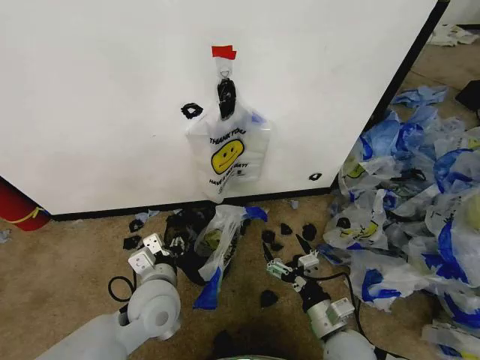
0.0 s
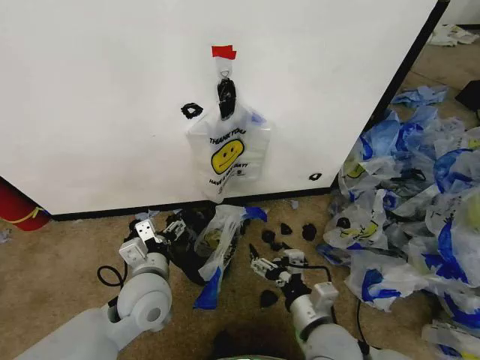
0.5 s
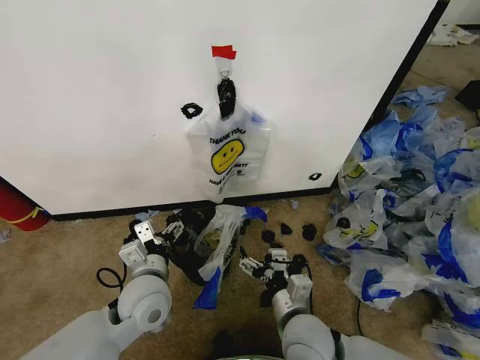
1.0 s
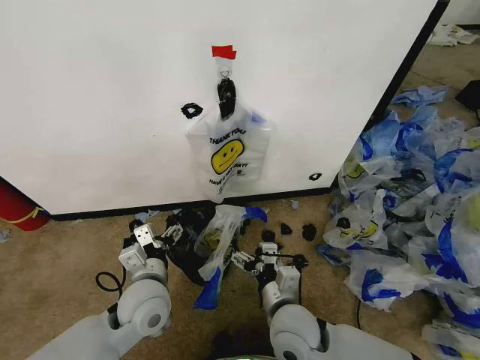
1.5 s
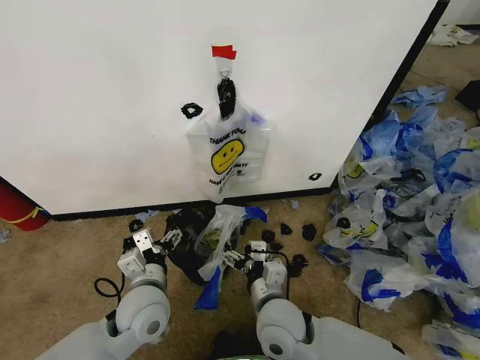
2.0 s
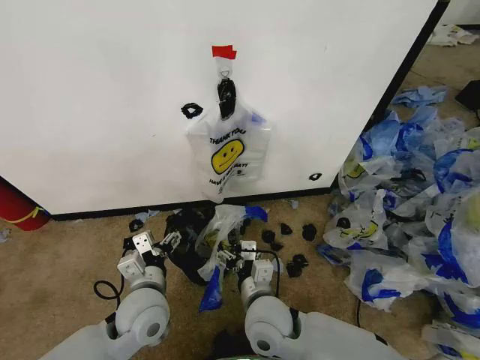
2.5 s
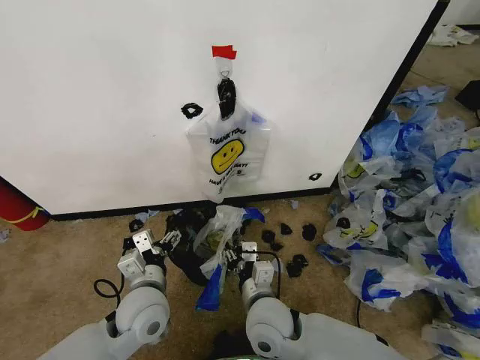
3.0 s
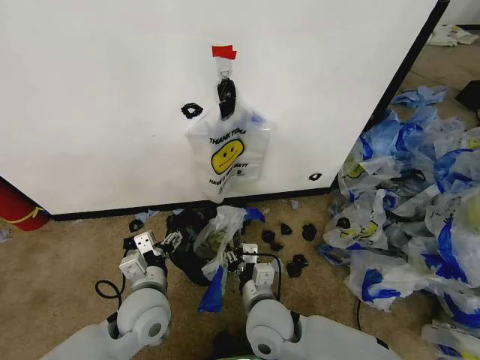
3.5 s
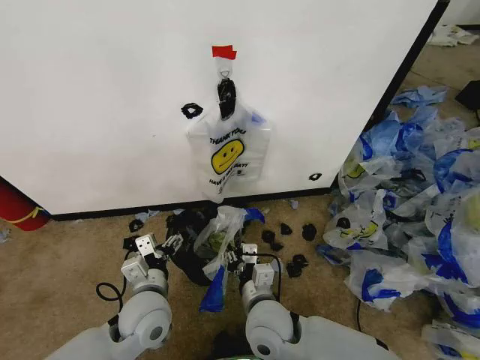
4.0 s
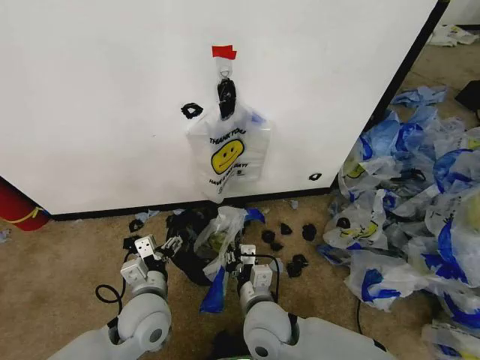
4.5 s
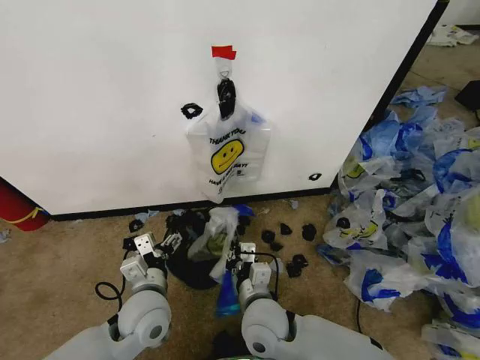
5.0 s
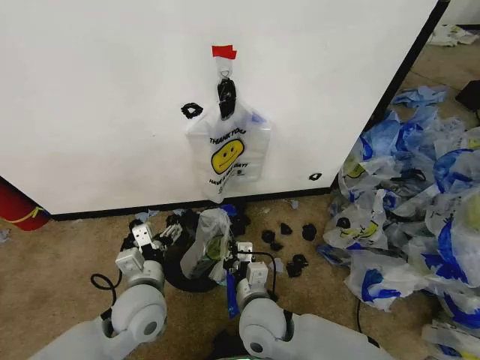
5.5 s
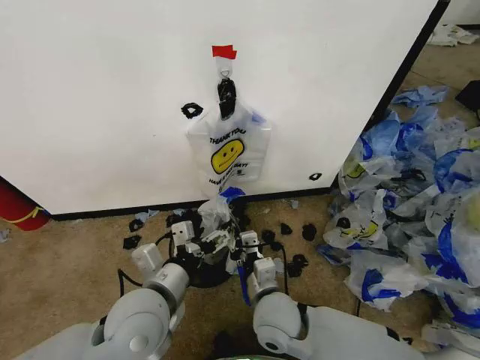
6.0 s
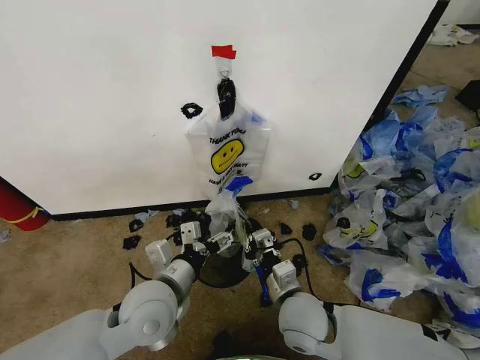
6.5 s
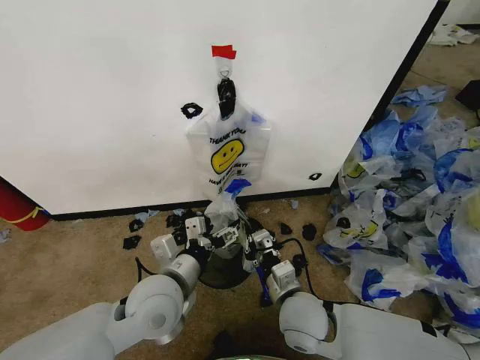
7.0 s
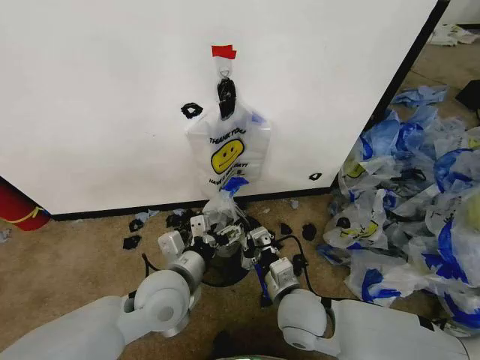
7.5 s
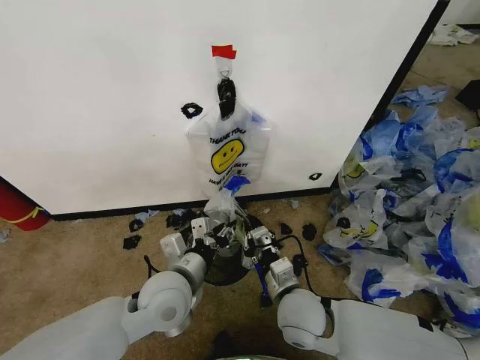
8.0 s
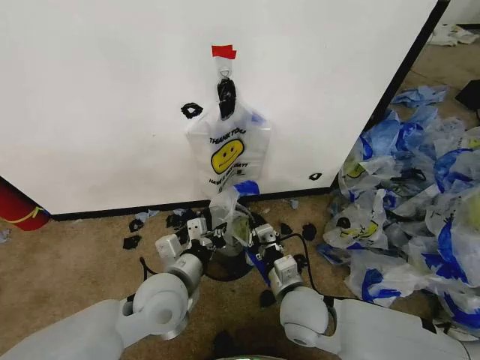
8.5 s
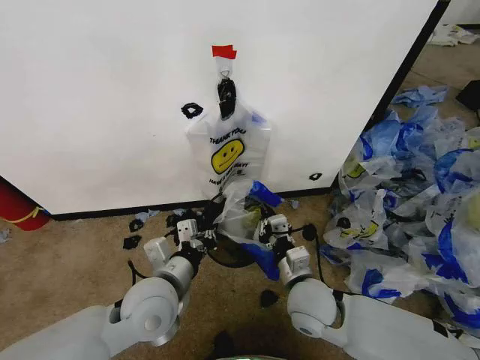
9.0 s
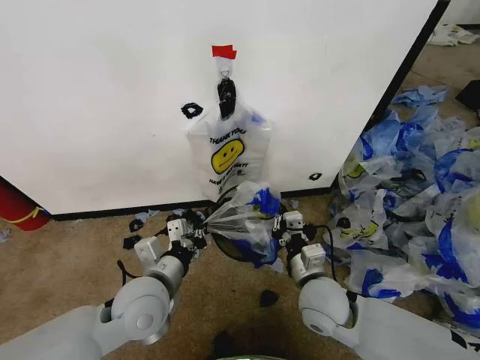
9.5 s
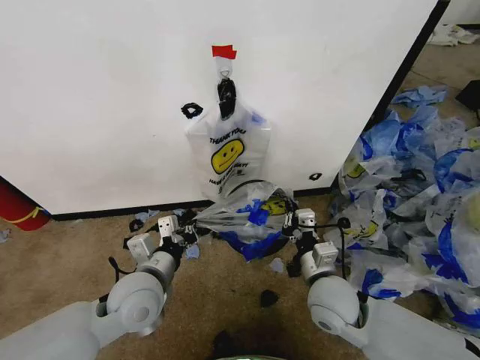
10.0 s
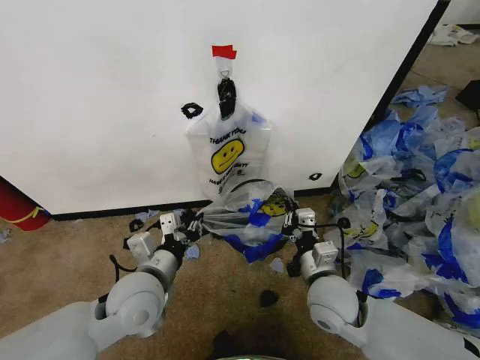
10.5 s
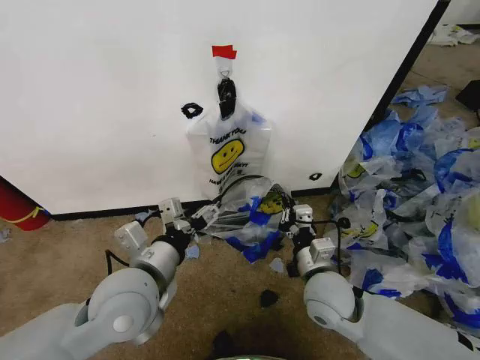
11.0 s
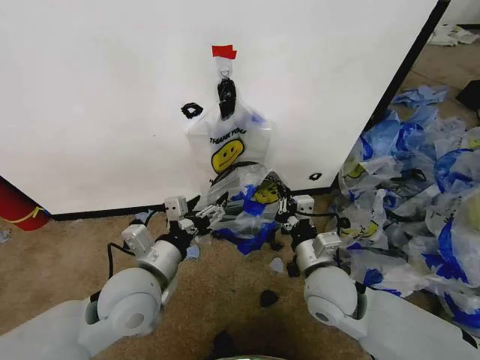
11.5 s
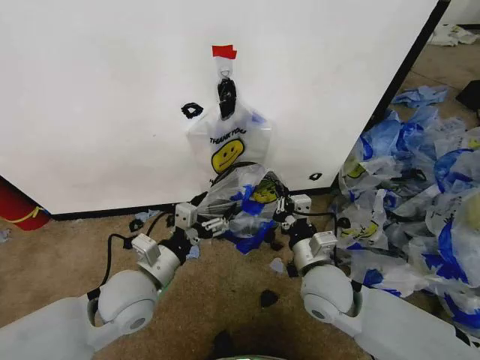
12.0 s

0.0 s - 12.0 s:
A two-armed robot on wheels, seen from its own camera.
Task of the whole recording: Pick up the garbage bag from the wall and place it over the trash bin.
0.0 s - 2.0 s: The right gripper heads to the left, covering approximately 15 cm. The left gripper opens up.
2.0 s - 4.0 s: The right gripper closes its fingers.
4.0 s - 6.0 s: The left gripper heads upward, covering some 10 cm, while the right gripper closes its fingers.
6.0 s - 8.0 s: The right gripper goes about 5 cm to the right. Meanwhile the left gripper changes place by some 5 cm, and closes.
8.0 s - 10.0 s: The left gripper shifts approximately 5 cm to the left, and closes. The right gripper heads to the right, covering roughly 5 cm.
10.0 s - 12.0 s: The left gripper opens up.

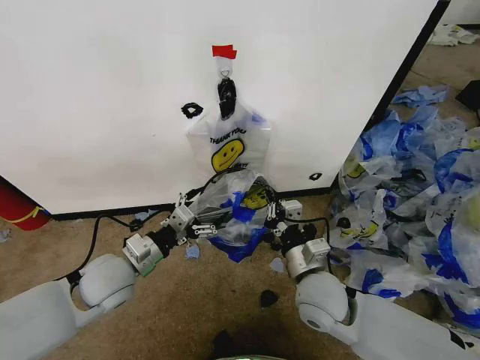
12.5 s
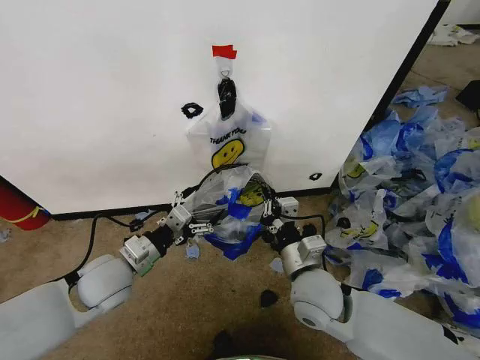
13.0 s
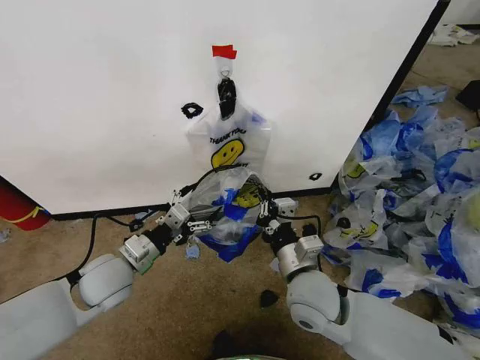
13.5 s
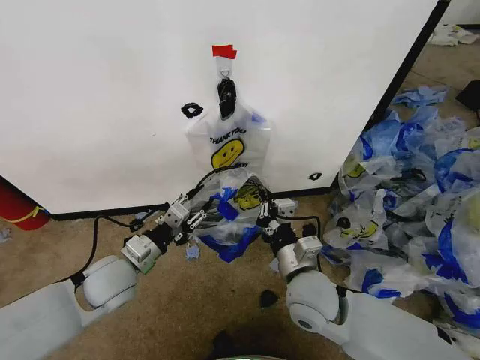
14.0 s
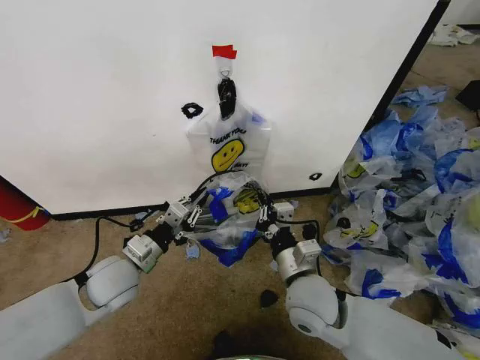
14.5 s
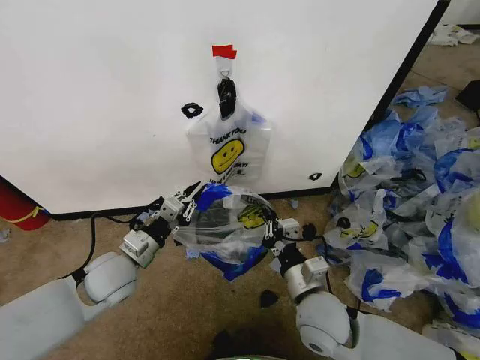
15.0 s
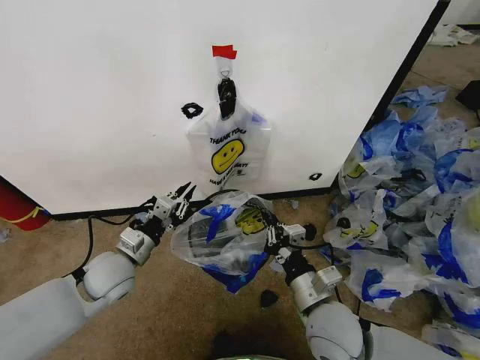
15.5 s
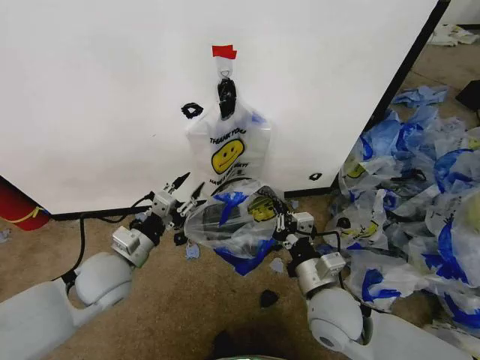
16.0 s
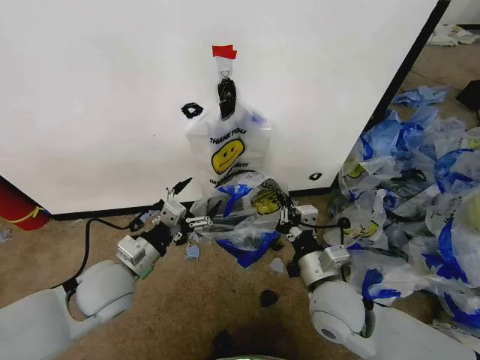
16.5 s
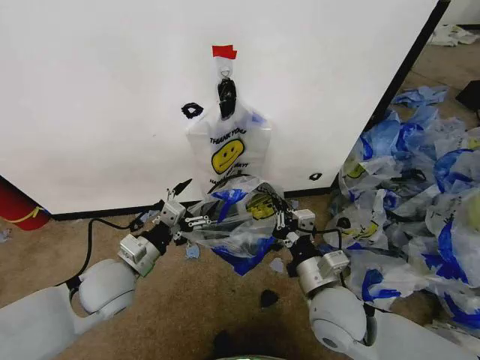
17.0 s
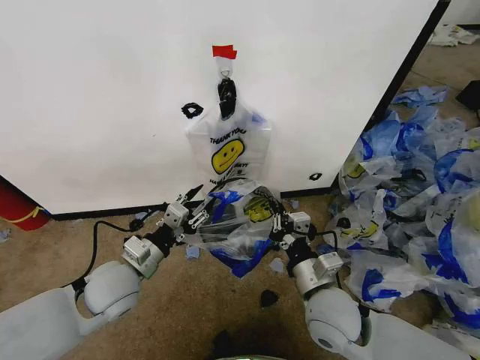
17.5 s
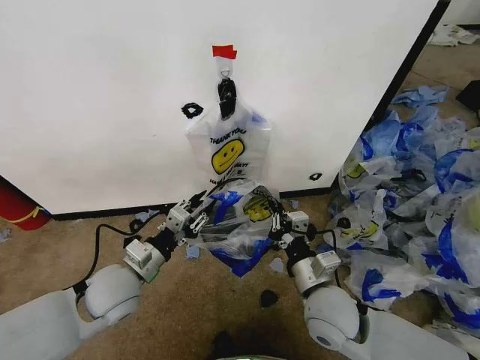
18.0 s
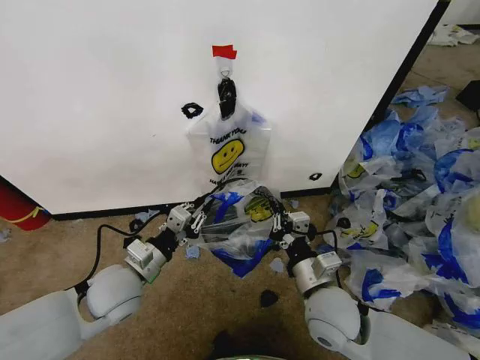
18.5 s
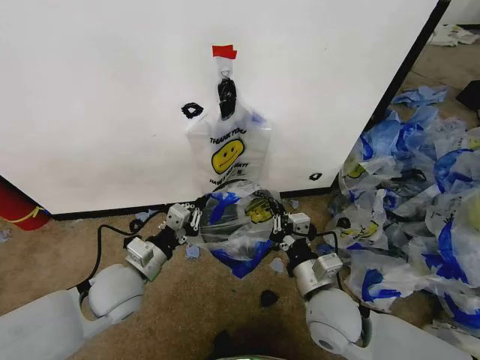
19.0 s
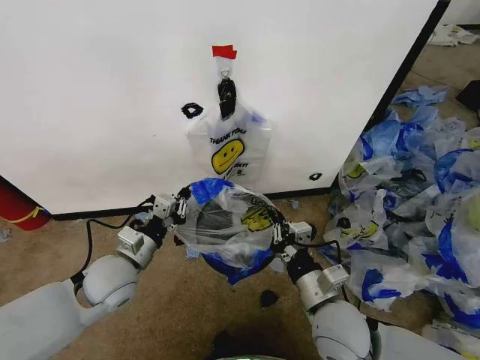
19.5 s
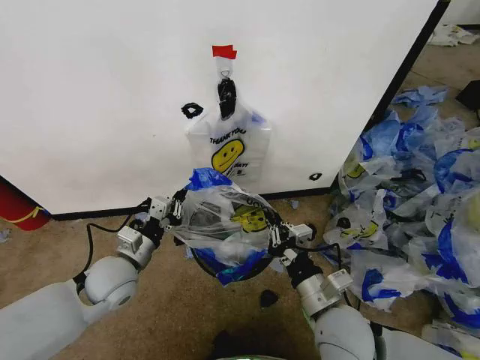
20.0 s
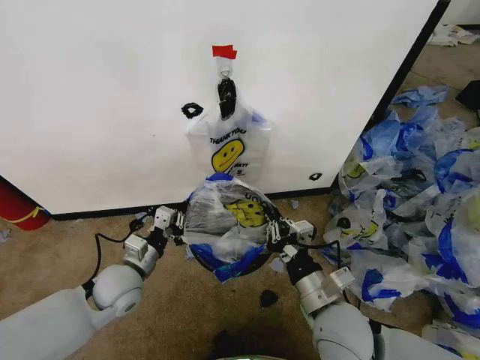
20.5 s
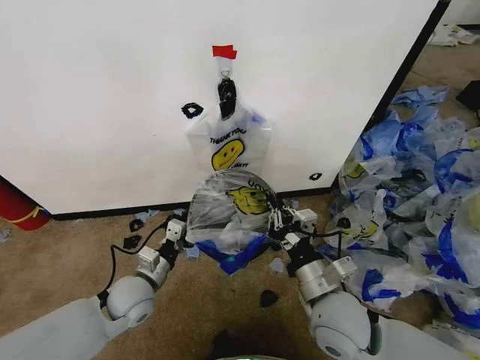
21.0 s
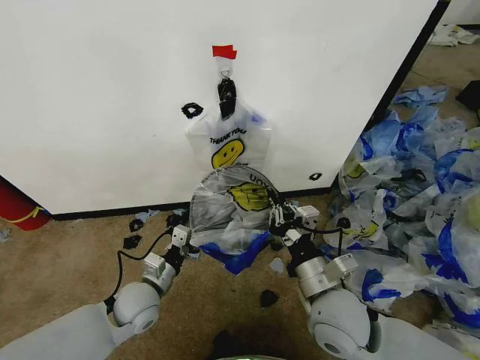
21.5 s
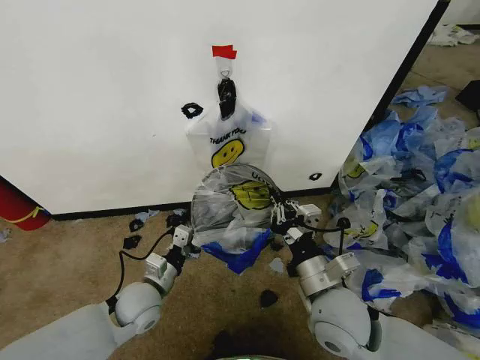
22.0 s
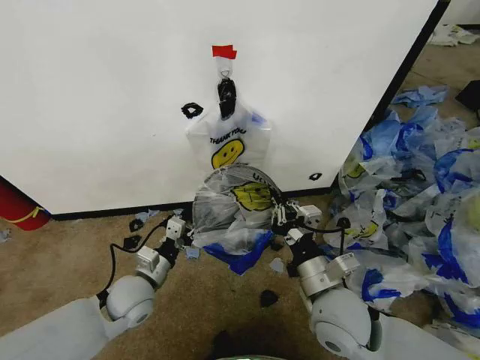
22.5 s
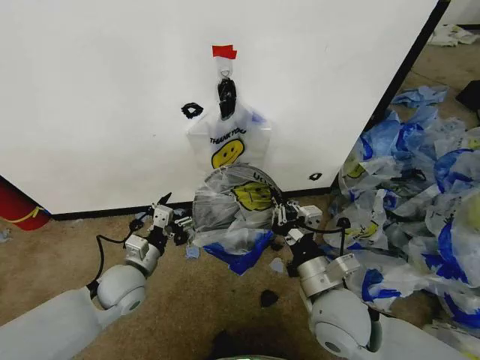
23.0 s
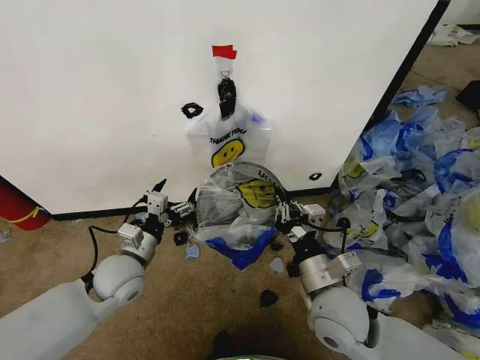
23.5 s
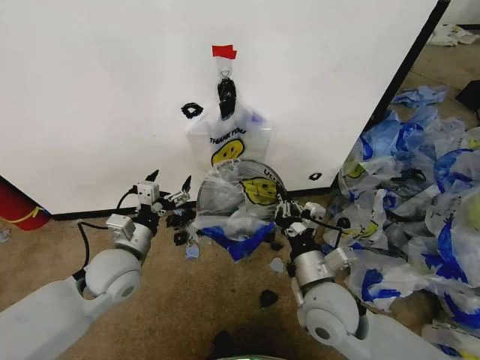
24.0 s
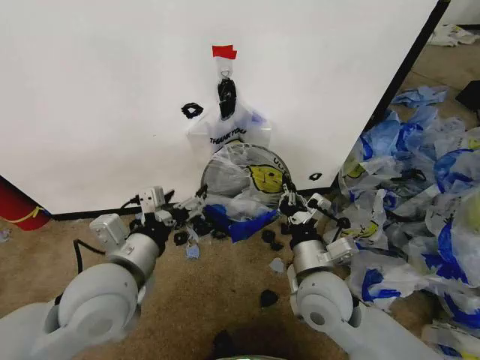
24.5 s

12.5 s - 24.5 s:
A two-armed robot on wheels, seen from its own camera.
Task of the whole recording: Pick up the garbage bag from the wall and place it over the trash bin.
12.5 s - 14.5 s: The left gripper closes up.
14.5 s - 16.5 s: The left gripper opens.
16.5 s - 18.5 s: The left gripper closes.
18.5 s - 20.5 s: The left gripper is displaced downward by roughly 5 cm.
20.5 s - 22.5 s: The left gripper opens up.
22.5 s - 24.5 s: The left gripper shifts some 20 cm upward, and opens up.

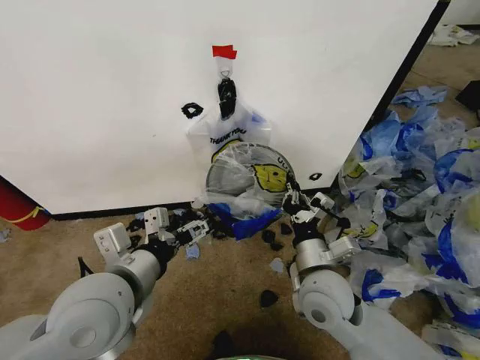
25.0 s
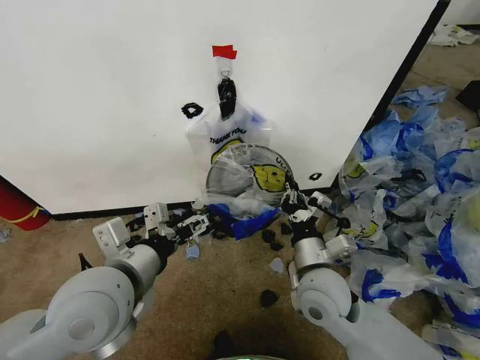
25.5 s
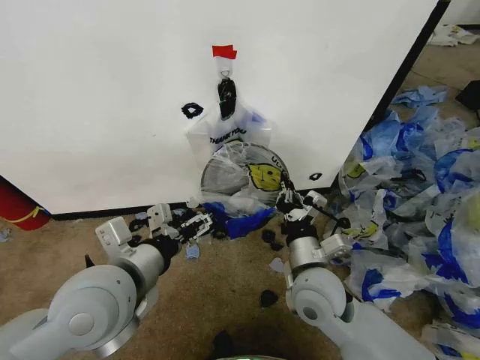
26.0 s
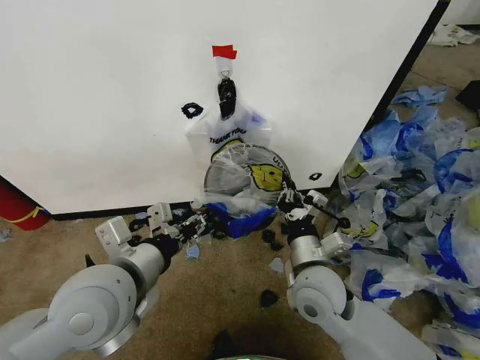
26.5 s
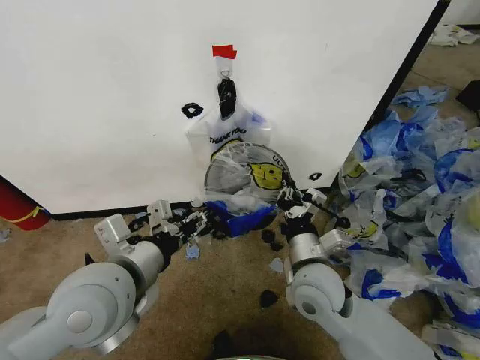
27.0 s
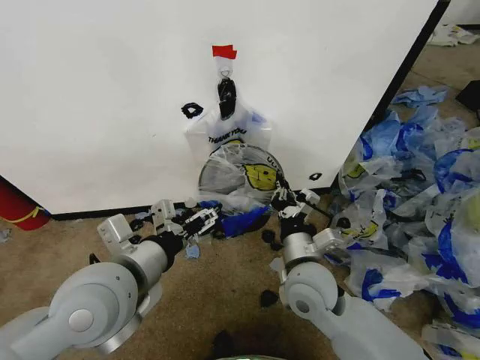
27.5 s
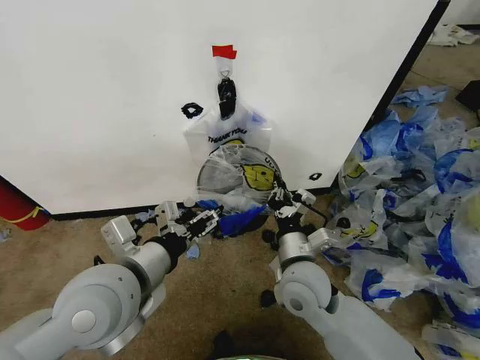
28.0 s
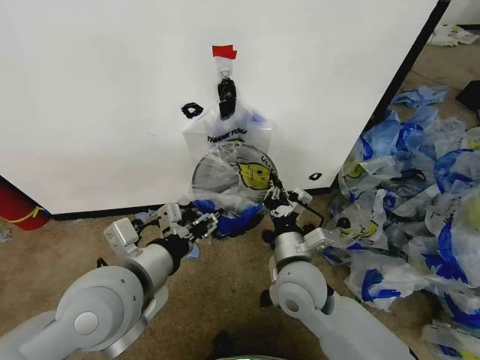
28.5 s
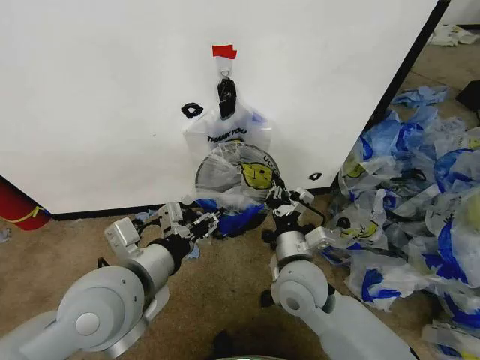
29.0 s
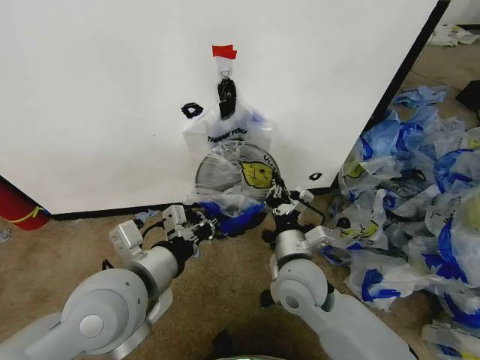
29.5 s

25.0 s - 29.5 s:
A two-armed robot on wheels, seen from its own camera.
Task of the whole recording: Pick up the garbage bag from the wall and place it over the trash bin.
25.0 s - 27.0 s: The left gripper closes.
27.0 s - 29.5 s: The left gripper closes up.
